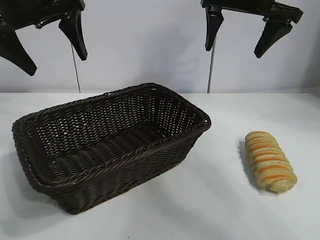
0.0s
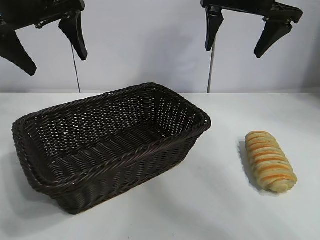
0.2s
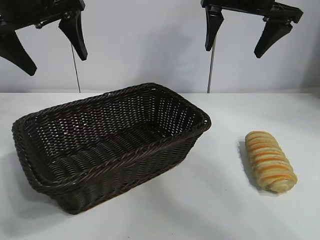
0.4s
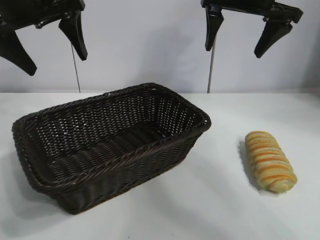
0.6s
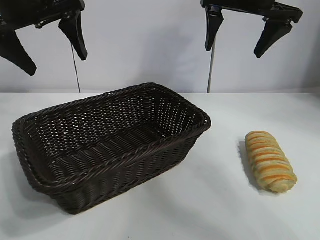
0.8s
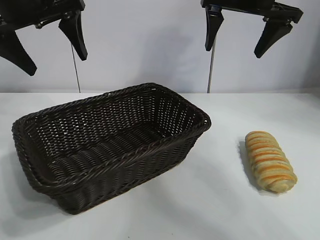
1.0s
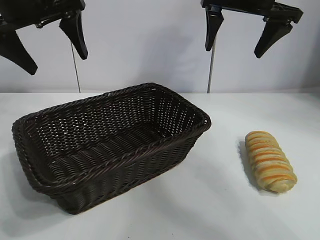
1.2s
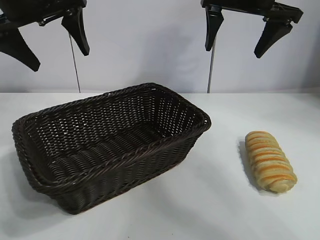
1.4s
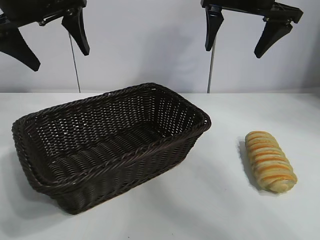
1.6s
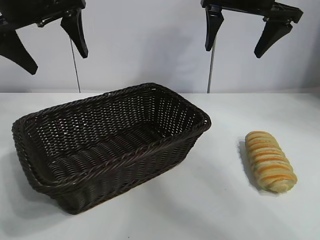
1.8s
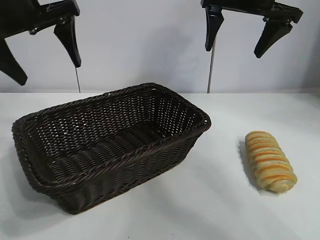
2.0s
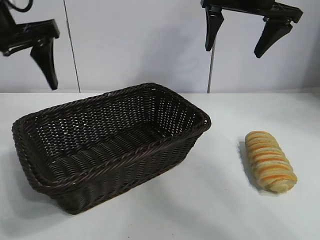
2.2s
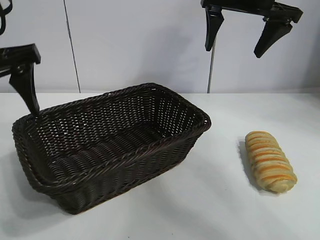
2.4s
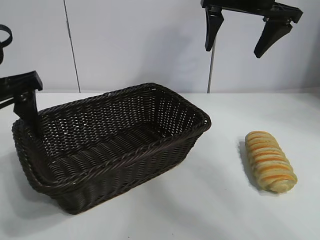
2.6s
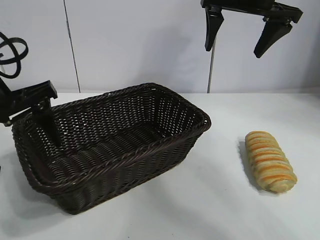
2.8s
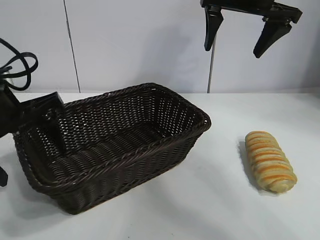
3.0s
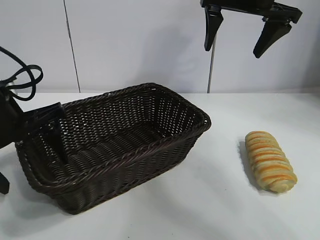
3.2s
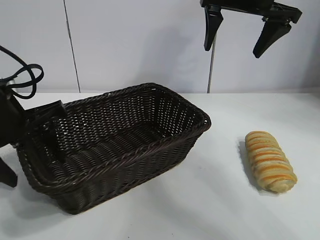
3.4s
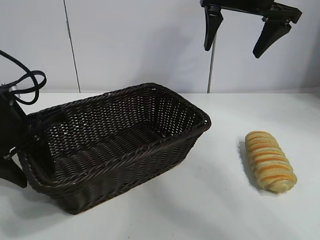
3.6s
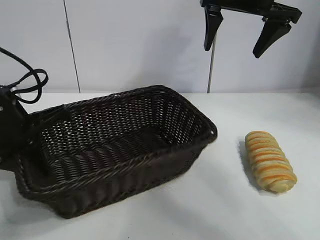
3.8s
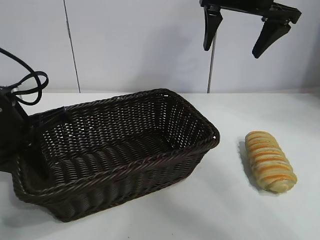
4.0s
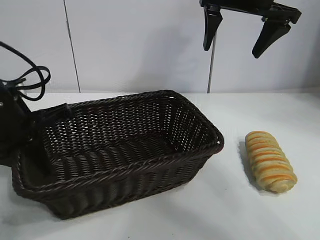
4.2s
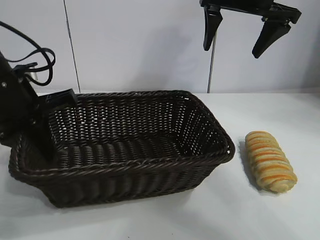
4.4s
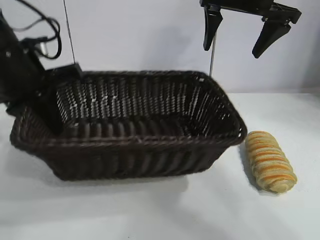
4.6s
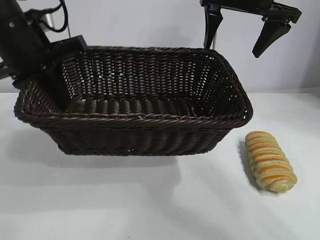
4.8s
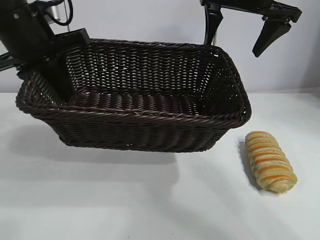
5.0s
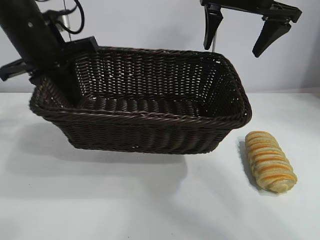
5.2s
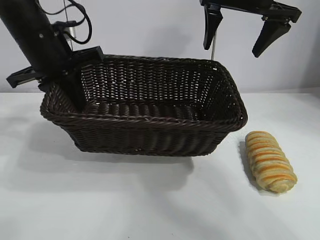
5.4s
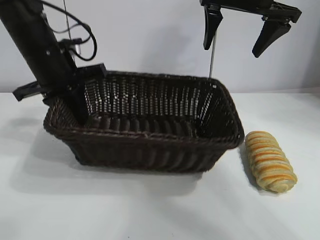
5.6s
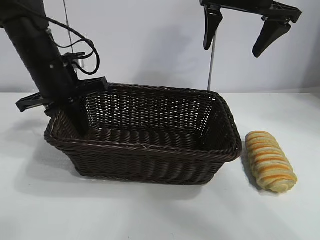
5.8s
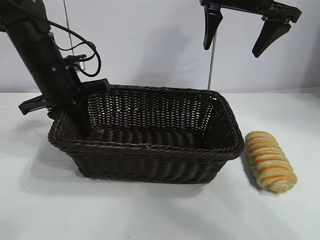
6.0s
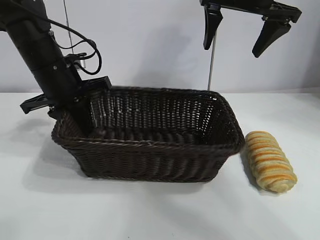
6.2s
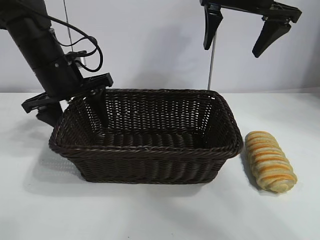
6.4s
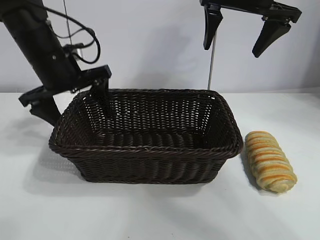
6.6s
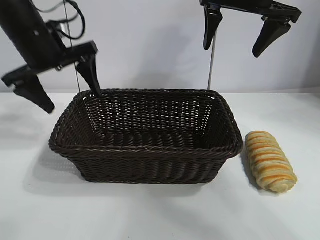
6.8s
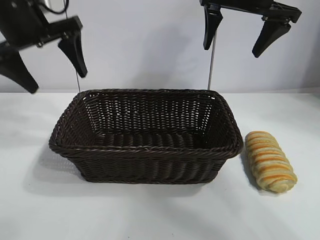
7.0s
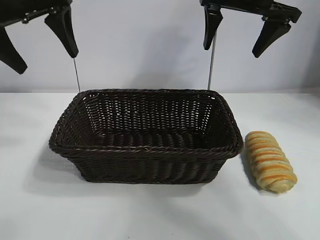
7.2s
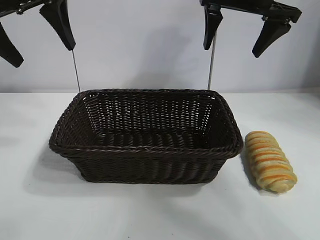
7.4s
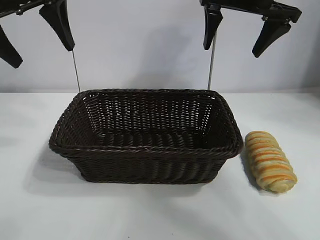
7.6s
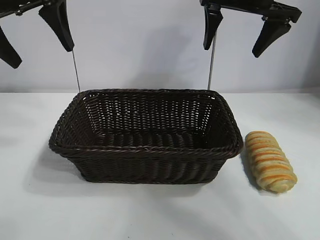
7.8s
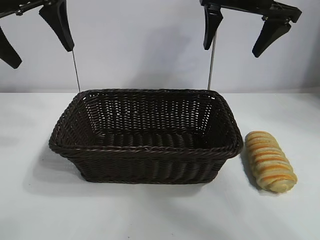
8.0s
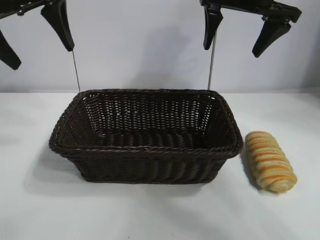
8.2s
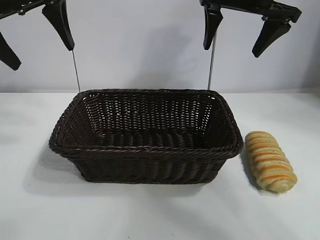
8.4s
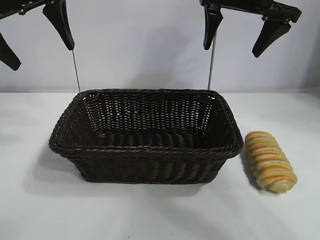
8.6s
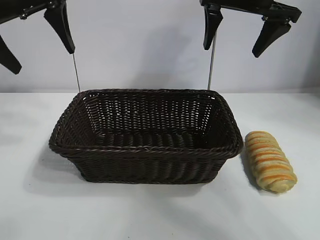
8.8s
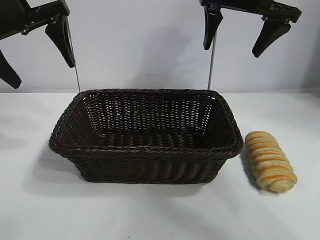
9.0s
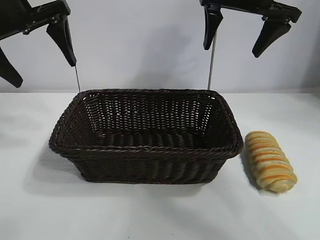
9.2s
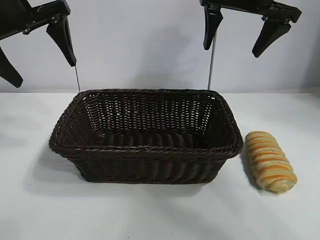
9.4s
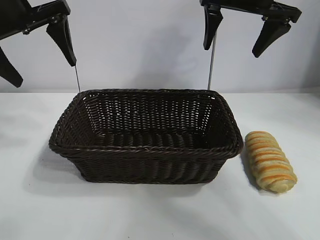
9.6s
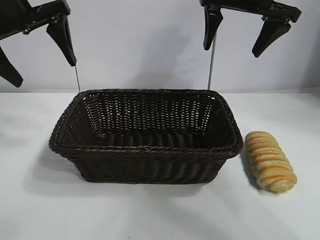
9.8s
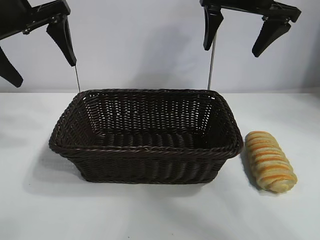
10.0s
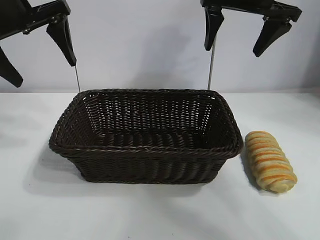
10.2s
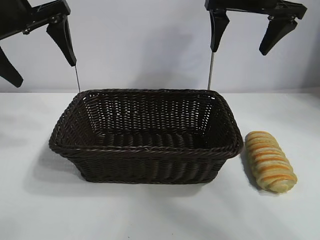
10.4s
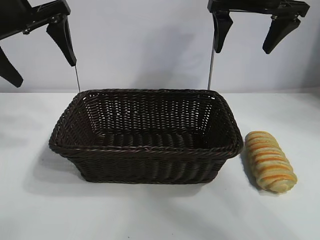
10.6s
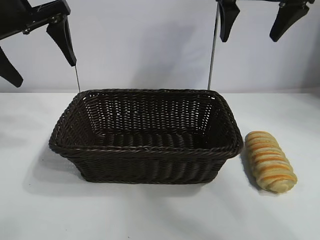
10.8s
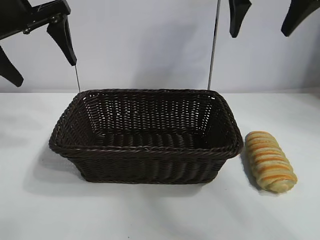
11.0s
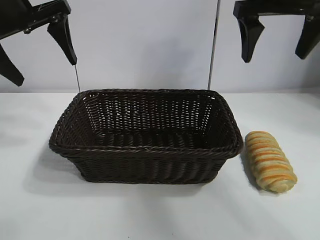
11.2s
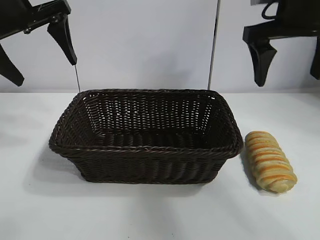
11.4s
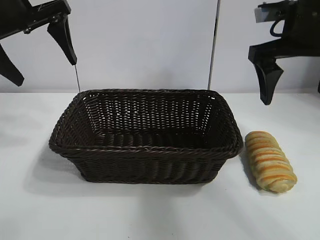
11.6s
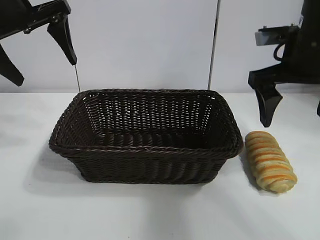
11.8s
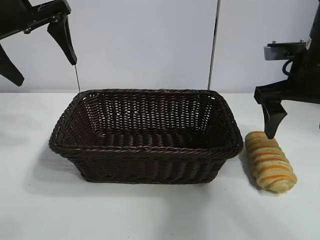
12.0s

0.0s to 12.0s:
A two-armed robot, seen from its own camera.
Task of the whole recording: pick up the long bread and put it into the basket.
Step, 1.2s to 4.0s: Grasp the basket with the left gripper.
Step, 4.2s to 6.4s: Place the basket in the center of the table with the left gripper.

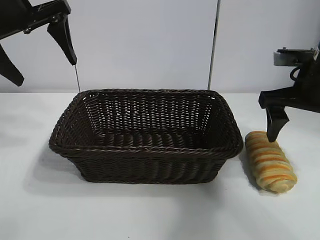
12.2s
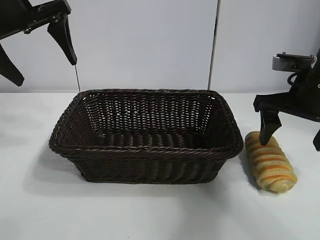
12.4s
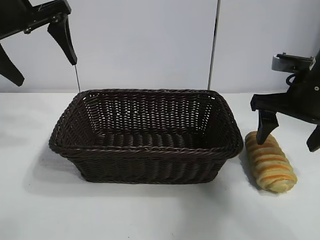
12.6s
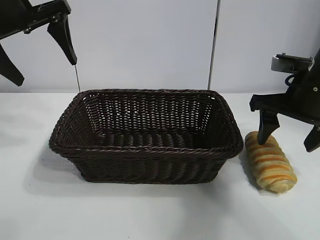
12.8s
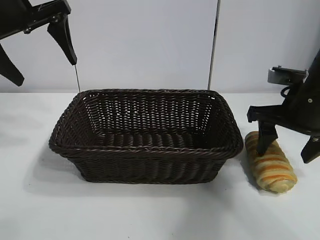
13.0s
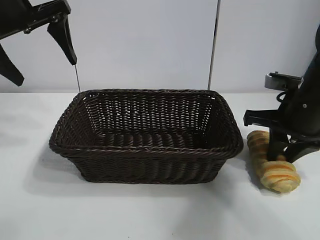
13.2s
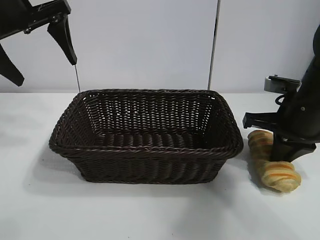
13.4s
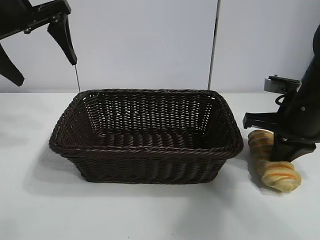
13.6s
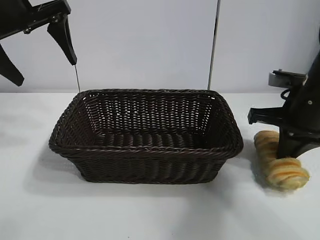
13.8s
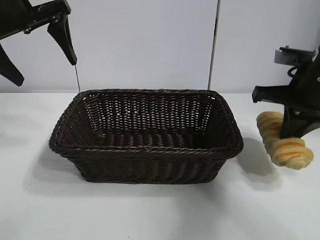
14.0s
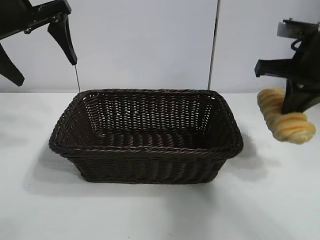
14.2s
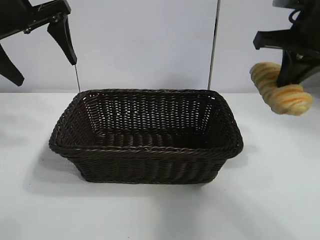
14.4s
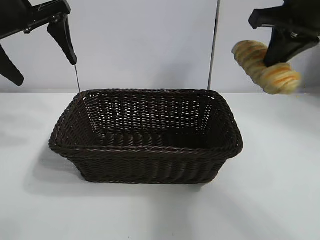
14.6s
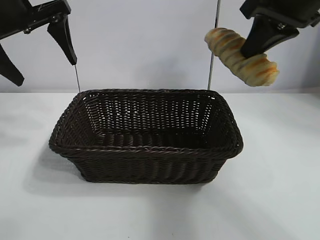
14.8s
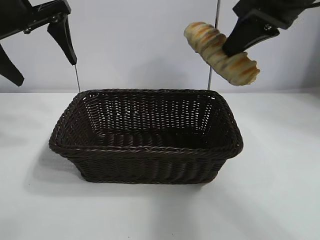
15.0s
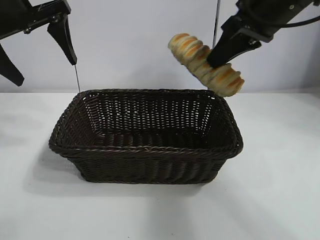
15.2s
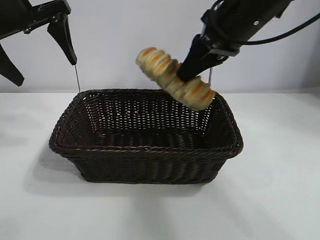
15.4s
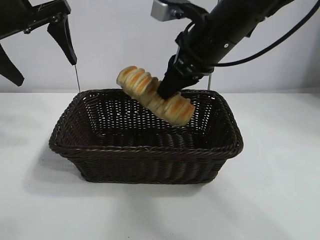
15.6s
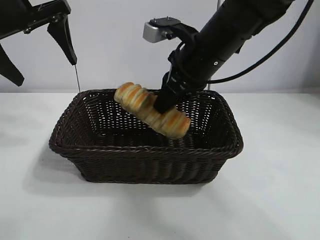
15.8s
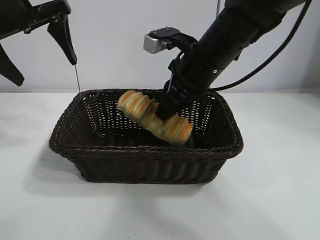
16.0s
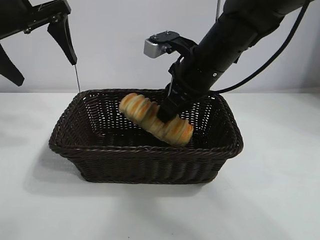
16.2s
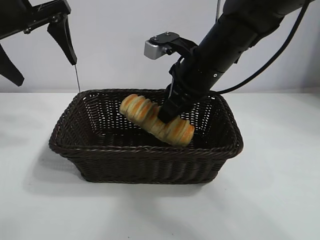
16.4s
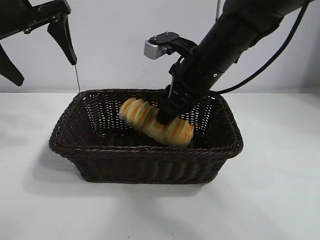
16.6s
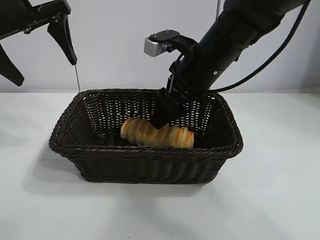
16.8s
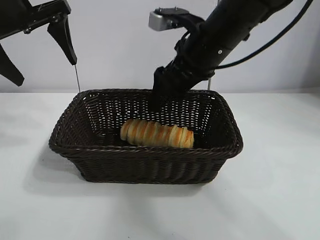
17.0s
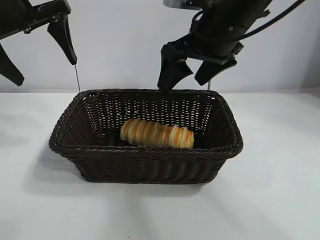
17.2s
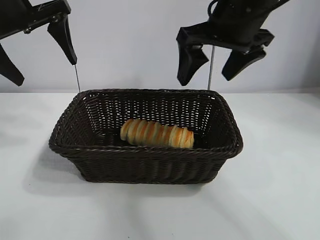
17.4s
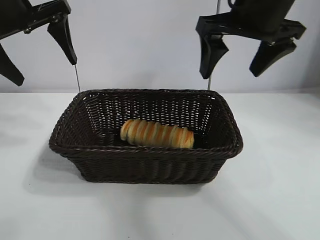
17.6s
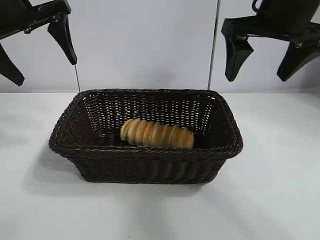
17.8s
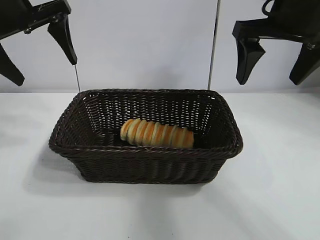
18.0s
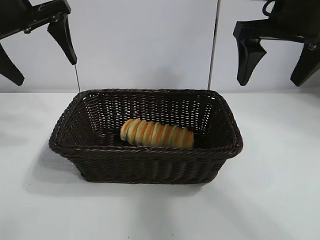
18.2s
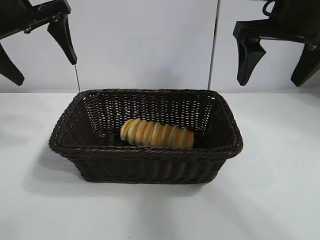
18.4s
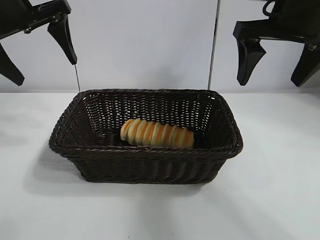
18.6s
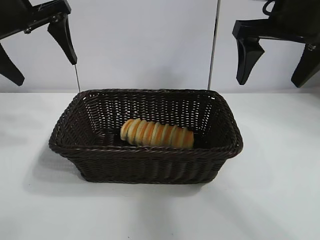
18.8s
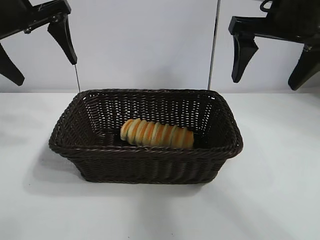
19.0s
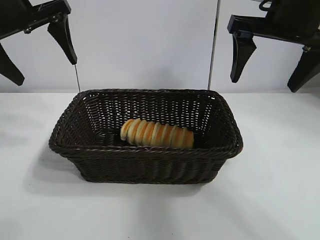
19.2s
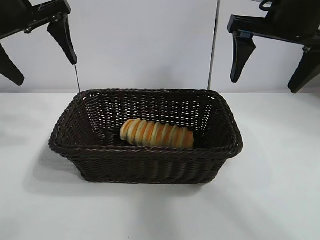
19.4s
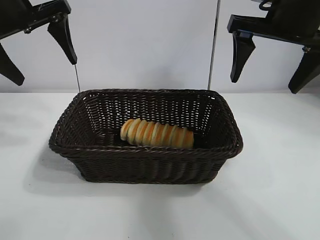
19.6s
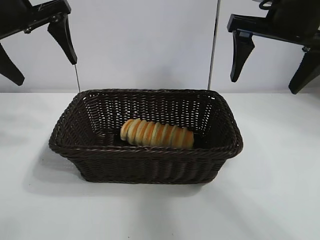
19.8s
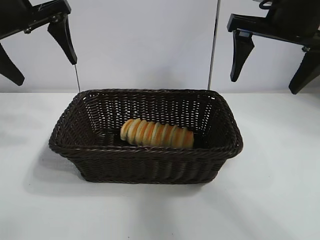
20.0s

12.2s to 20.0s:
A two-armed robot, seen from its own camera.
Task of the whole recording: pick up the long bread and put it into the basket.
Step, 13.6s to 16.8s: Place the long bread in the basket with right gripper.

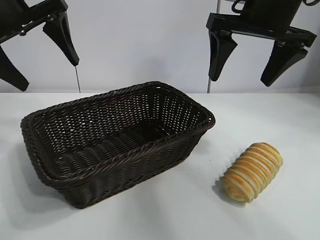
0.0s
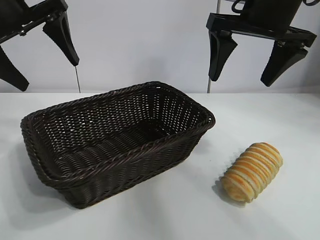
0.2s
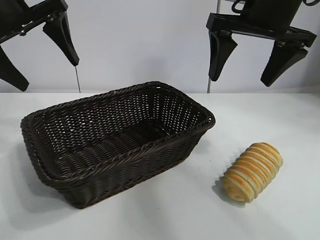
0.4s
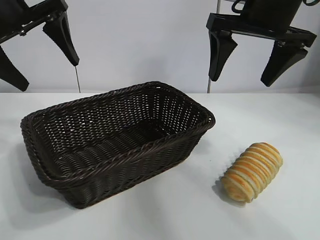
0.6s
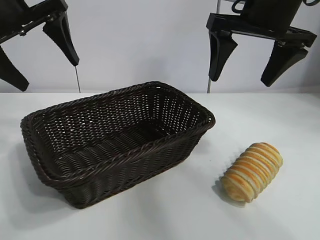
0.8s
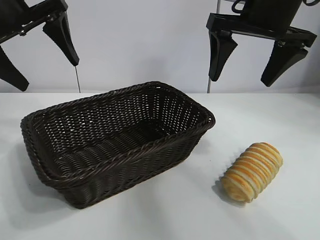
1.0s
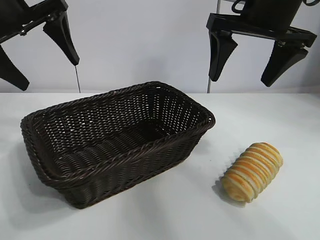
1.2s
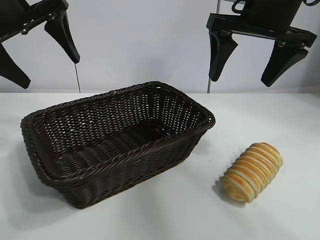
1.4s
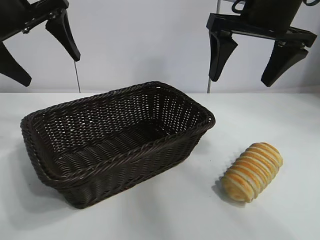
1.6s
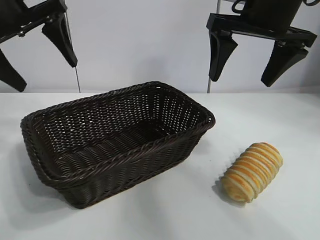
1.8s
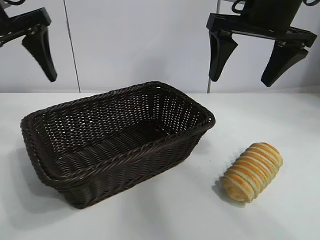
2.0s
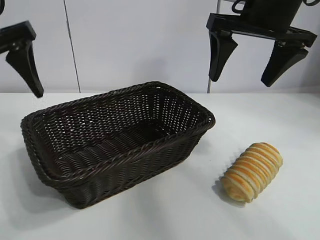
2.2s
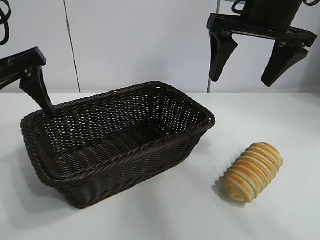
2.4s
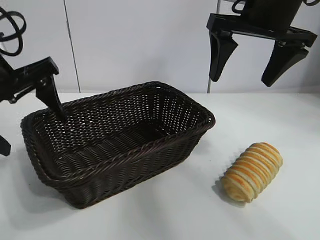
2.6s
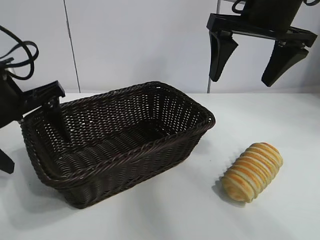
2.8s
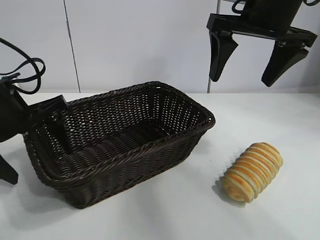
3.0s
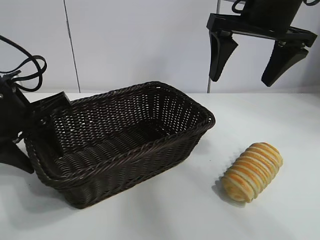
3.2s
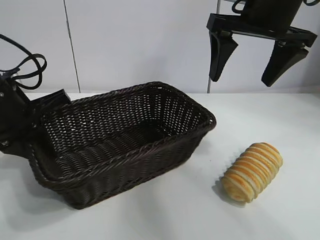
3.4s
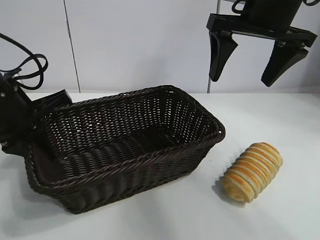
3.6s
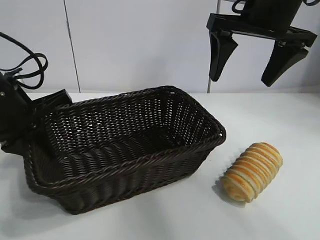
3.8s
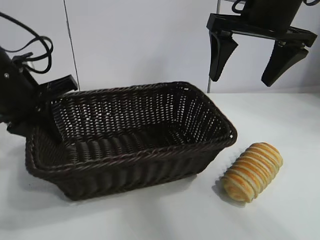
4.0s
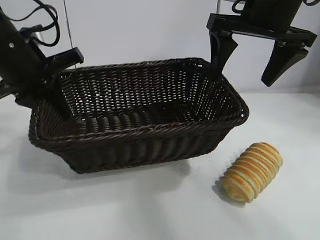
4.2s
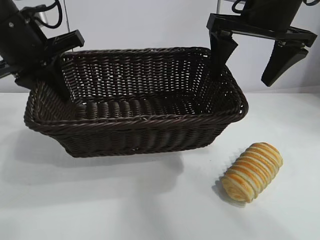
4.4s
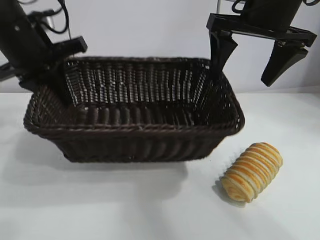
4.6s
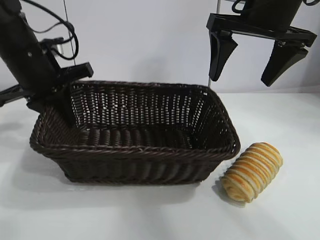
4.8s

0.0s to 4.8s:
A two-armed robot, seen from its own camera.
Task of the whole recording: pick up the long bread and put it into the basket.
Step, 1.2s to 3.4s: Grasp the basket with the left gripper.
